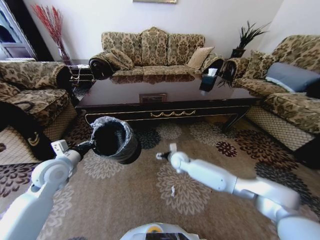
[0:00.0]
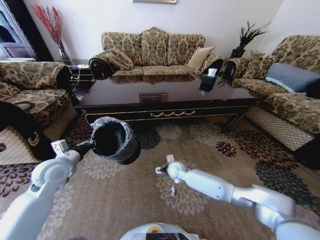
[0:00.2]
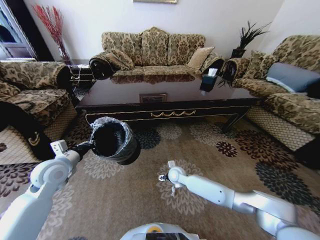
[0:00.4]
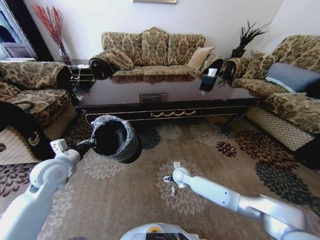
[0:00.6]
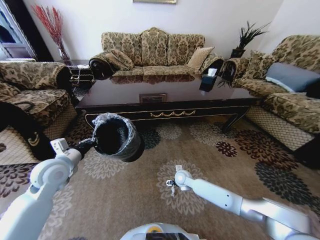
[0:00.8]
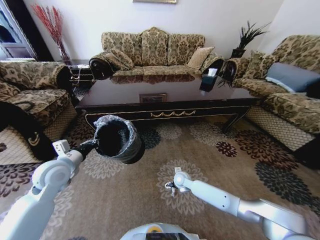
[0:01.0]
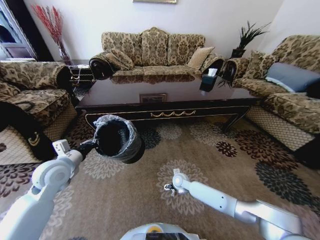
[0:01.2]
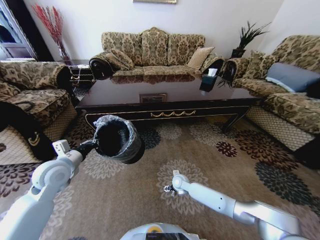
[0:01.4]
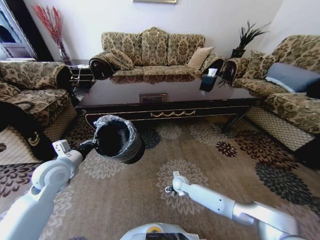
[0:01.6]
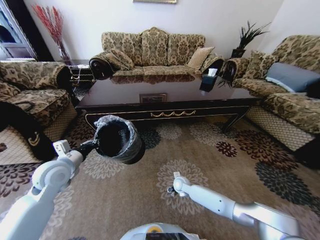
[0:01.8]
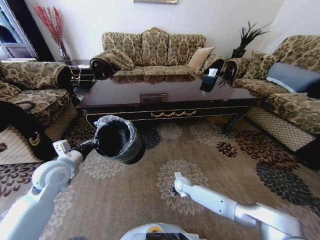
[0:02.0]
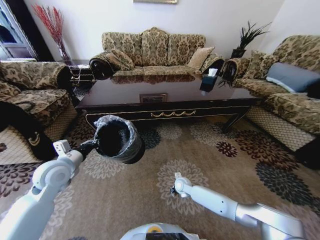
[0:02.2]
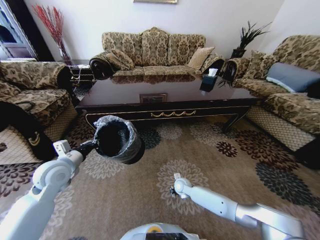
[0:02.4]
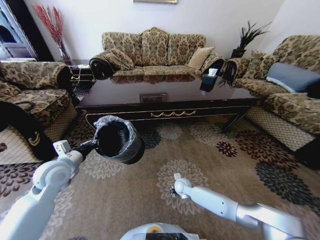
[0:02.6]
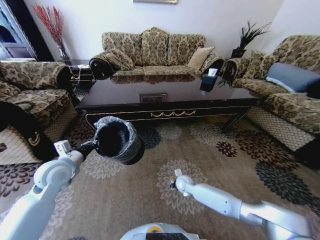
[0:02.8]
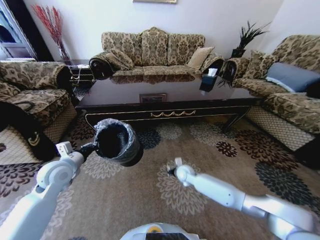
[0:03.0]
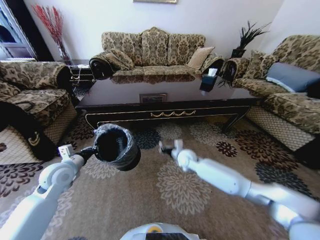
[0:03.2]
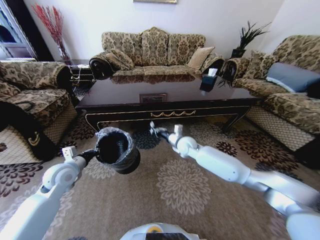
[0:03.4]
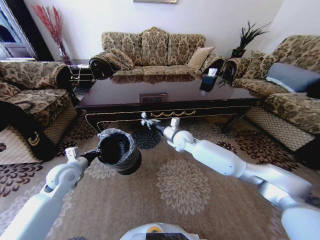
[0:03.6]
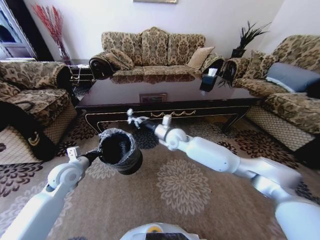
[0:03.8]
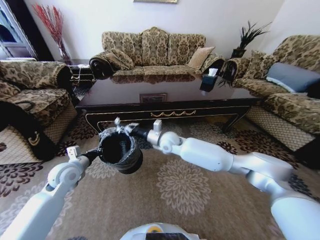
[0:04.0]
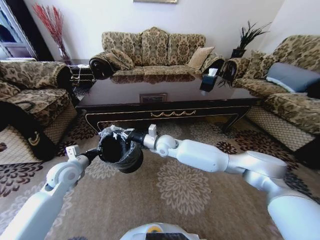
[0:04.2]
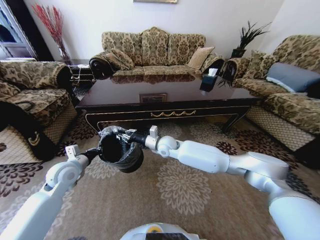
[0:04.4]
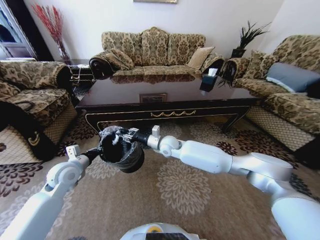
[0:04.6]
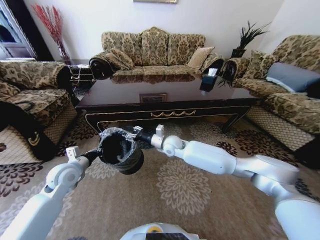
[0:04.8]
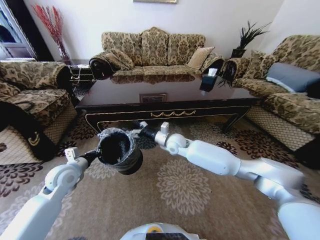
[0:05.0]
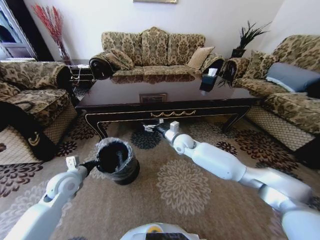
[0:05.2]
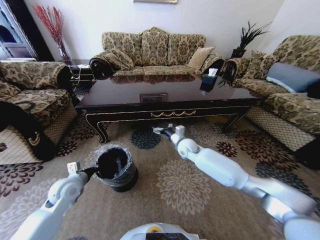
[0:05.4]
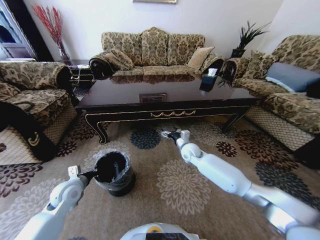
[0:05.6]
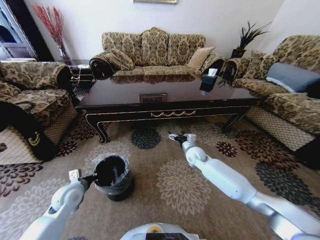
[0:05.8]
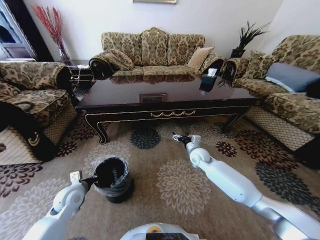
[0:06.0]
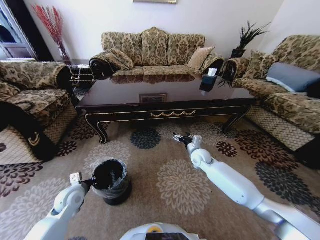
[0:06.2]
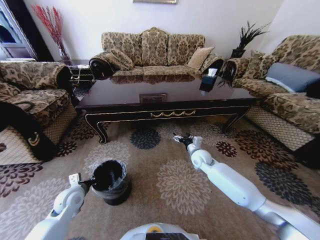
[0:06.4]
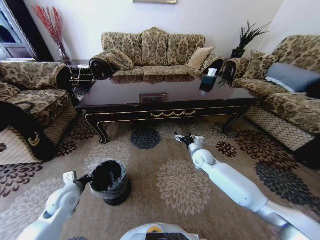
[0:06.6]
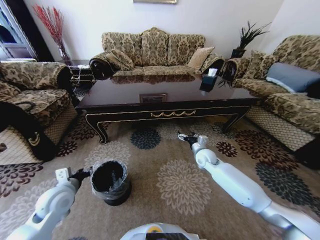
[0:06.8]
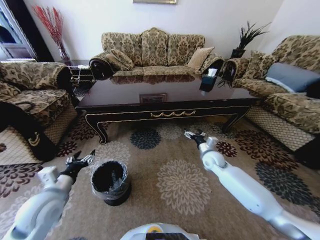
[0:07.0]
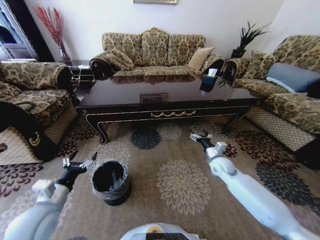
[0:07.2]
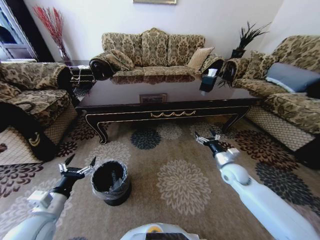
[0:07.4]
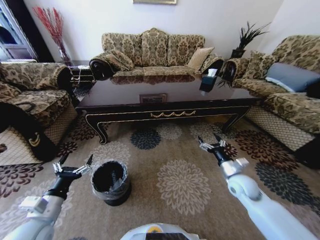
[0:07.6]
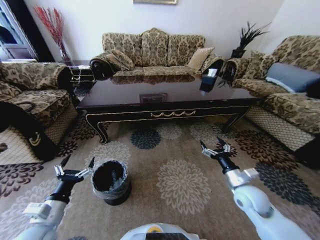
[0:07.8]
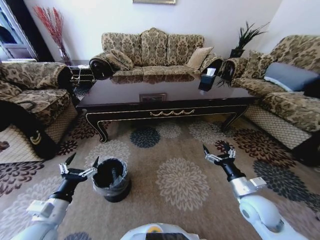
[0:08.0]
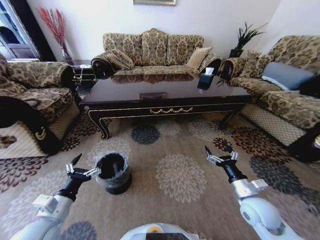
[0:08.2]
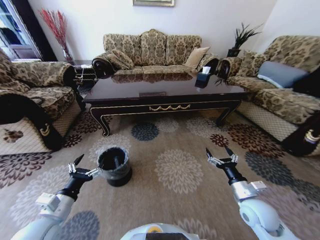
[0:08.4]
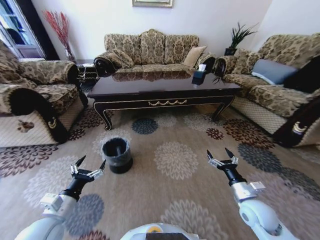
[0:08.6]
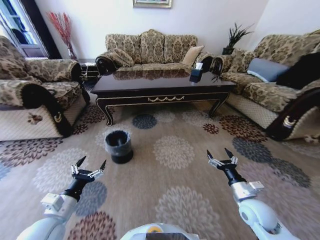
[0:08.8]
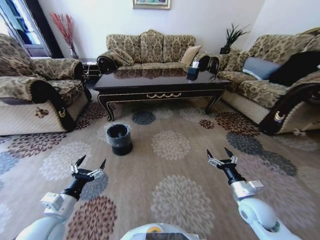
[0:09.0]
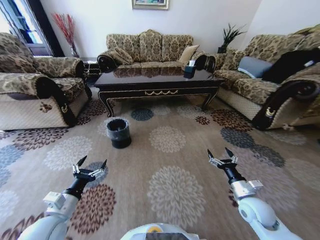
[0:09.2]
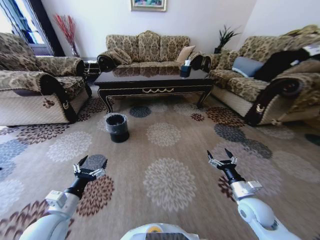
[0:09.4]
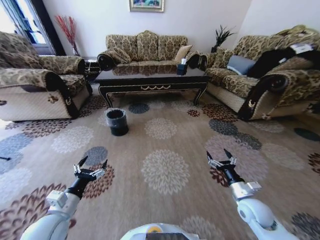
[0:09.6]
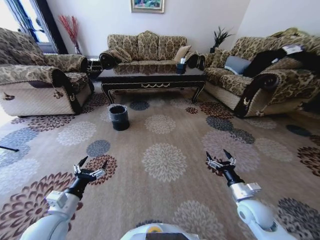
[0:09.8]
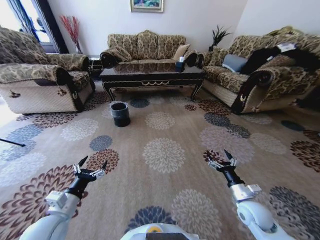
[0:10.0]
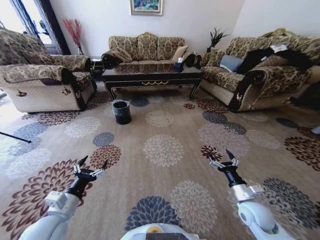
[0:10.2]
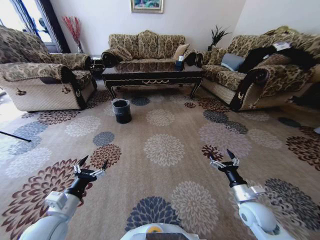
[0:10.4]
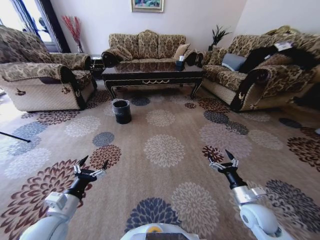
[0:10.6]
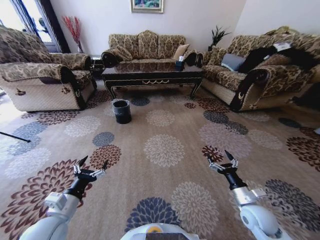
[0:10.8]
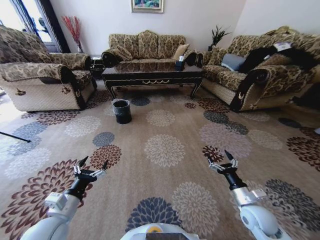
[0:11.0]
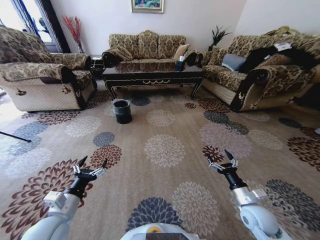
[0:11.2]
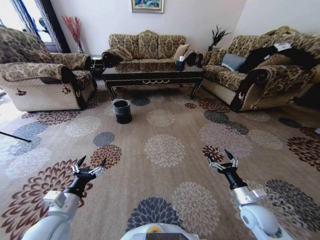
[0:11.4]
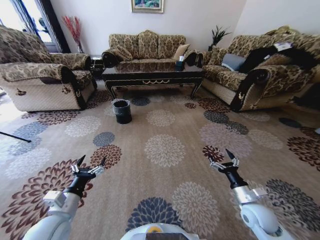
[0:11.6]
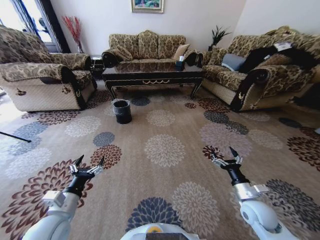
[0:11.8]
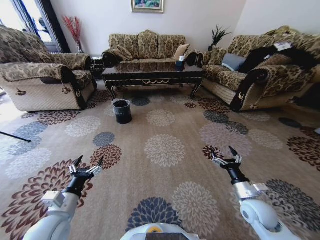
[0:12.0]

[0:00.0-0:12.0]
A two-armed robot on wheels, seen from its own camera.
Task of the whole recording: Move to the front of the table and pick up the trash from the floor, then place it into the trash bin.
0:00.0 to 0:01.6: The right gripper moves downward and backward, about 15 cm.
0:01.6 to 0:03.0: The right gripper goes some 5 cm upward, and closes.
0:03.0 to 0:04.4: The right gripper is displaced upward and to the left by about 20 cm.
0:04.4 to 0:06.0: The right gripper goes about 20 cm to the right and downward, and opens, while the left gripper goes roughly 10 cm downward and backward.
0:06.0 to 0:07.6: The left gripper goes roughly 15 cm backward and upward, and opens up. Meanwhile the right gripper is displaced backward and to the right by about 20 cm.
0:07.6 to 0:09.0: The right gripper heads backward, covering about 10 cm.
0:10.4 to 0:12.0: The grippers move only a little.

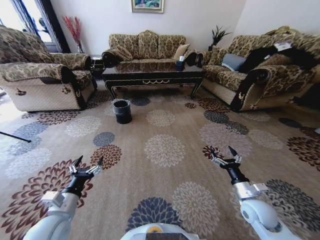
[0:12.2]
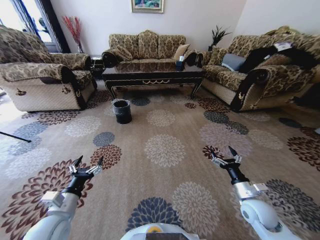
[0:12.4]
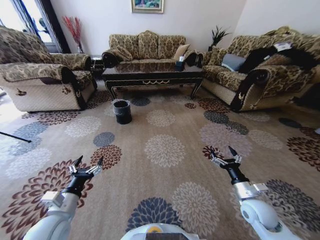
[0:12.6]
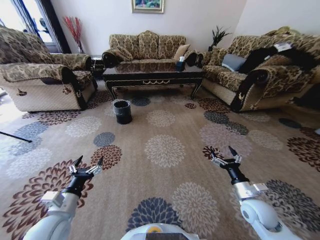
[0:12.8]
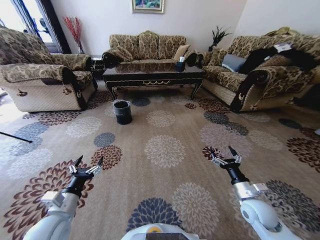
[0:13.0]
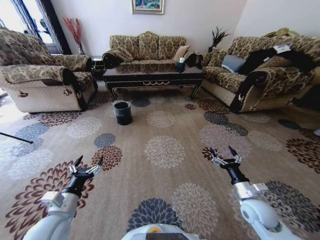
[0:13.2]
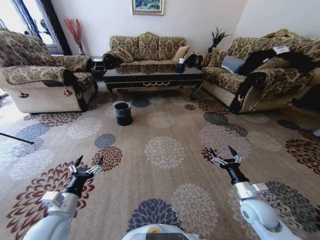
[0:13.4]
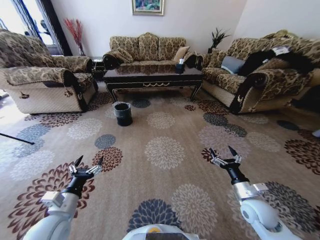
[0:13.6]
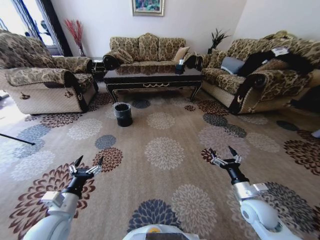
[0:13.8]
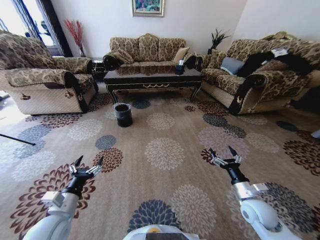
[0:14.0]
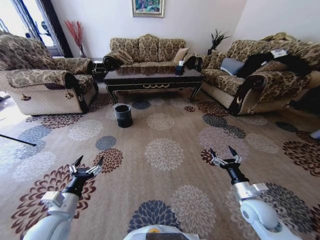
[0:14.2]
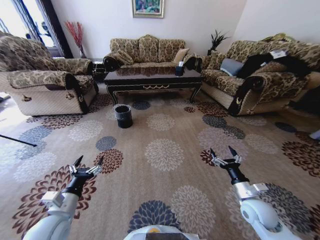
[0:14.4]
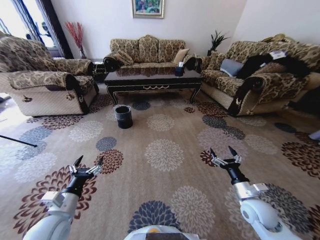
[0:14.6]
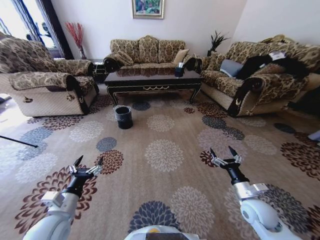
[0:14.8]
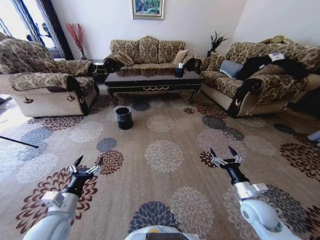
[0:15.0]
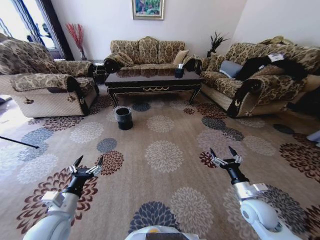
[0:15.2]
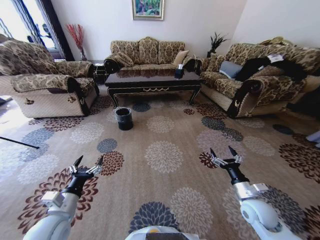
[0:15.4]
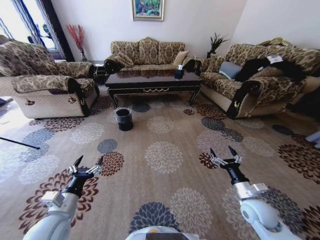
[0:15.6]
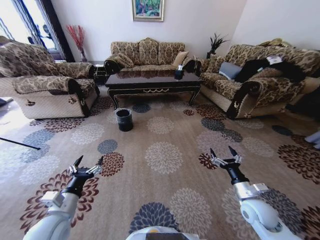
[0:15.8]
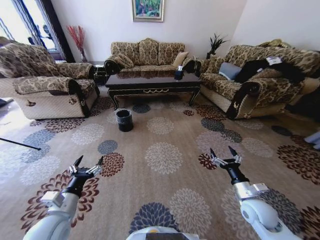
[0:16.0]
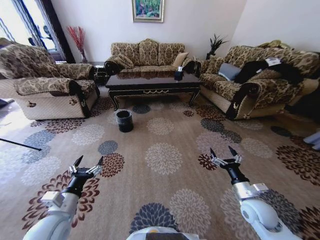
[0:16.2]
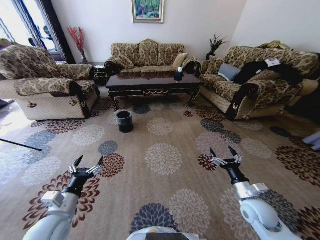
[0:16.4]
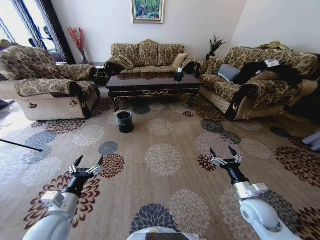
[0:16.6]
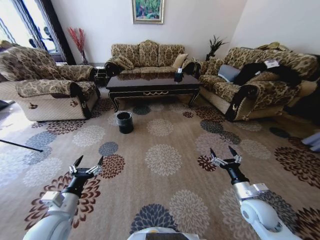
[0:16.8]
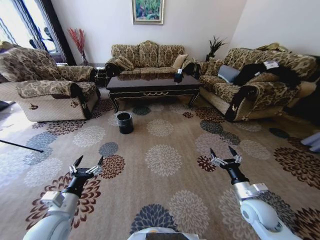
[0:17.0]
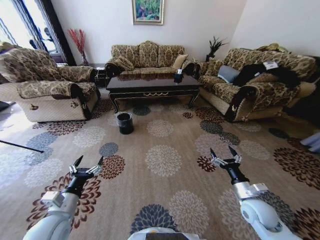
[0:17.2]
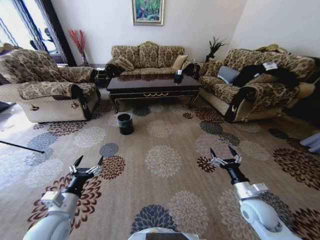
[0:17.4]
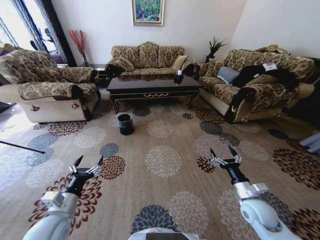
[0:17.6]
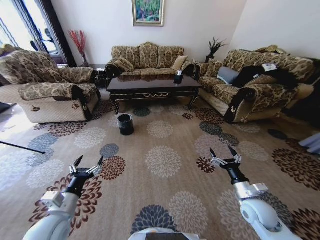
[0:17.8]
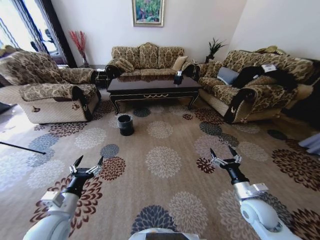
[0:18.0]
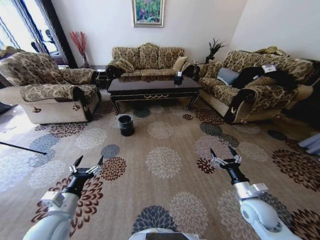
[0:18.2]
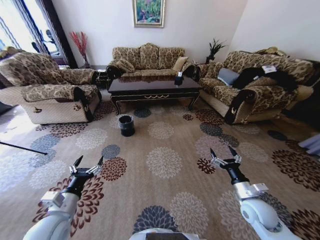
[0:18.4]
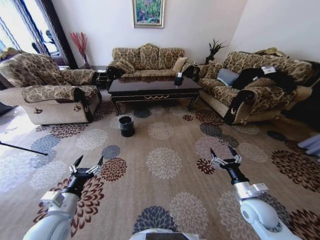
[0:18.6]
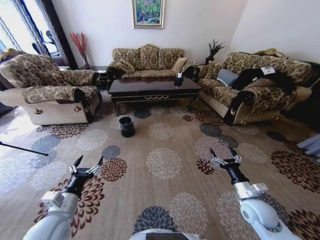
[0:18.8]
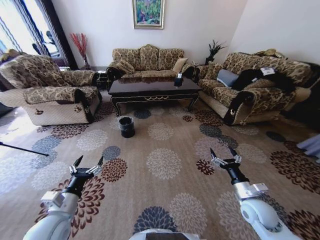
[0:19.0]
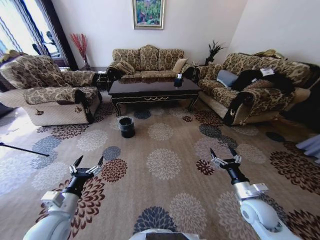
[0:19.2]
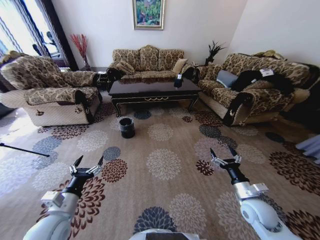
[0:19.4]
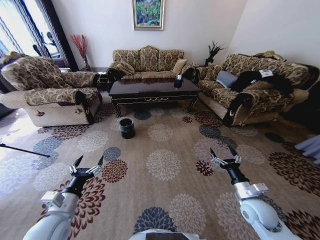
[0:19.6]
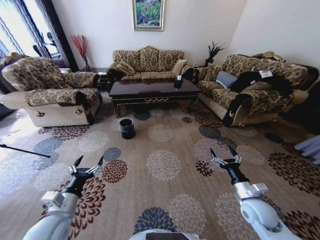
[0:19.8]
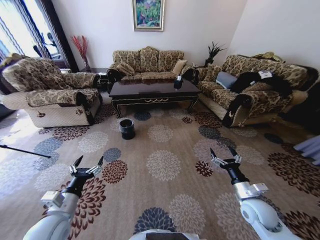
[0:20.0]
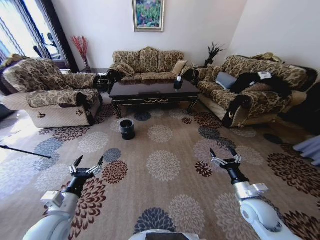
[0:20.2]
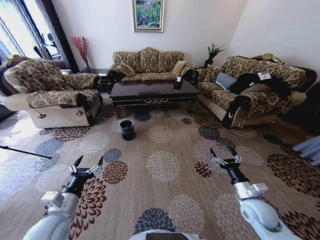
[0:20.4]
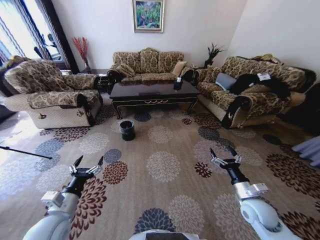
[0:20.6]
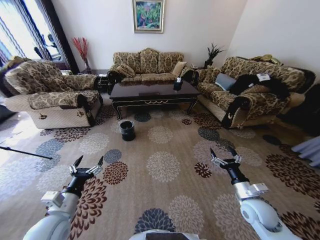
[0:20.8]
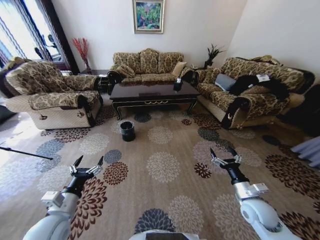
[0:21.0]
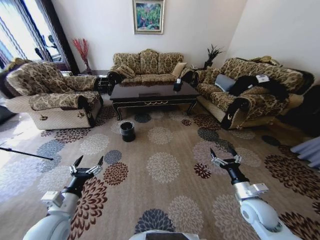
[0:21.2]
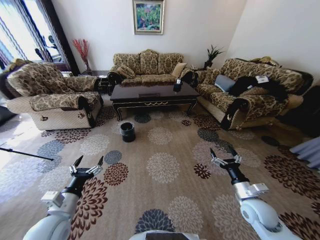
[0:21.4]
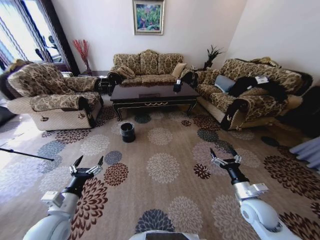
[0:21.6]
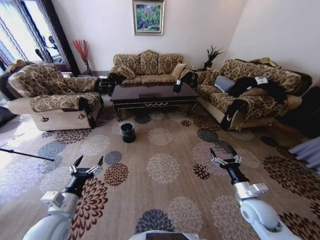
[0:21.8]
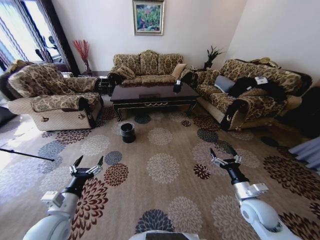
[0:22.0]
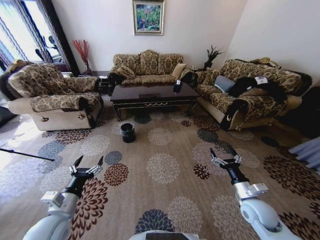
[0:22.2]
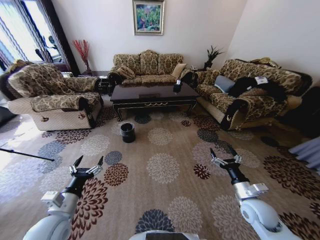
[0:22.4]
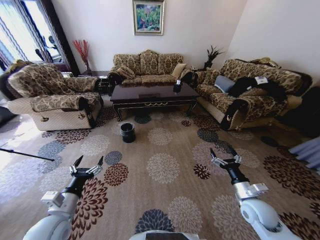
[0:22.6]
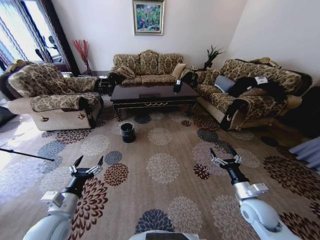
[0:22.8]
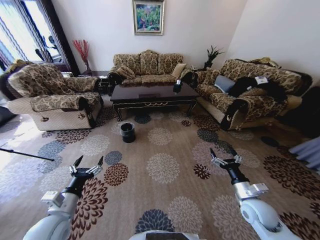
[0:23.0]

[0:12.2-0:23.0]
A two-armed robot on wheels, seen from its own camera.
Task of the whole recording: Move to the front of the table and pick up the trash from the floor, then place it into the trash bin.
0:20.0 to 0:23.0: Both grippers stay about where they are.
